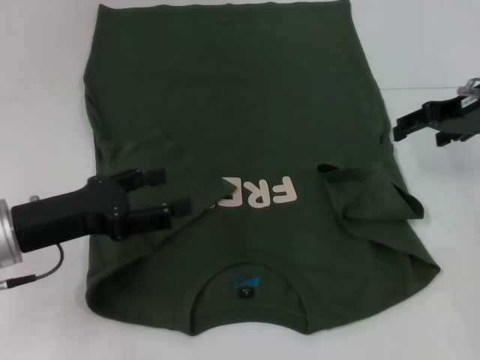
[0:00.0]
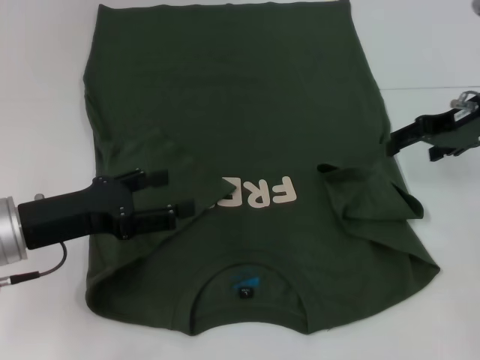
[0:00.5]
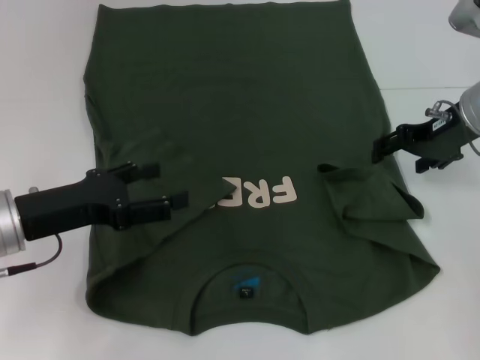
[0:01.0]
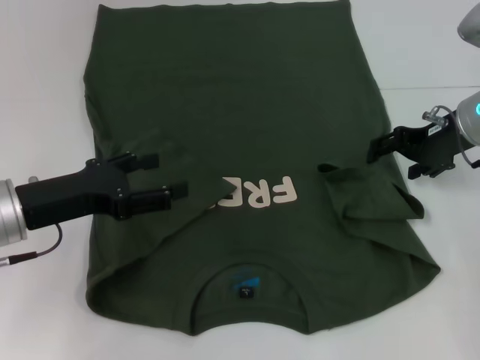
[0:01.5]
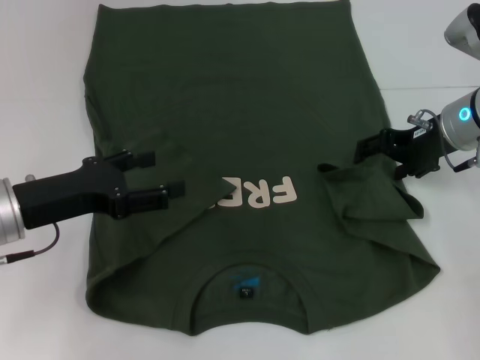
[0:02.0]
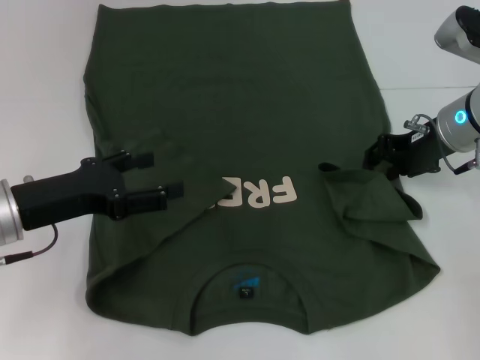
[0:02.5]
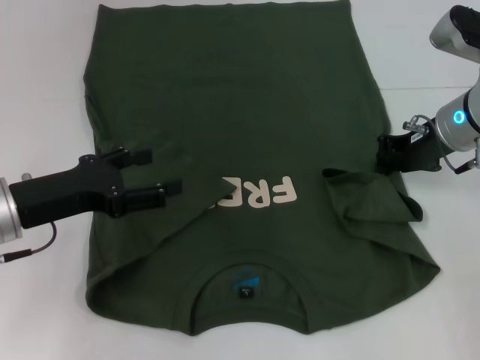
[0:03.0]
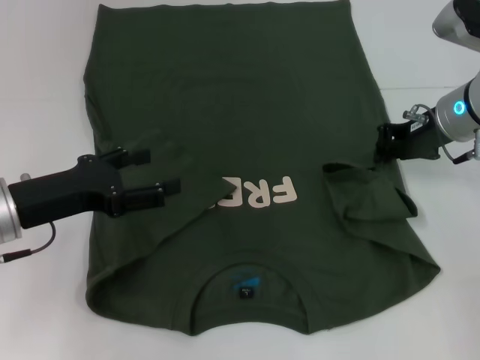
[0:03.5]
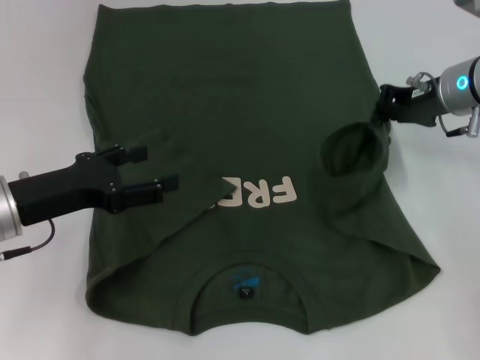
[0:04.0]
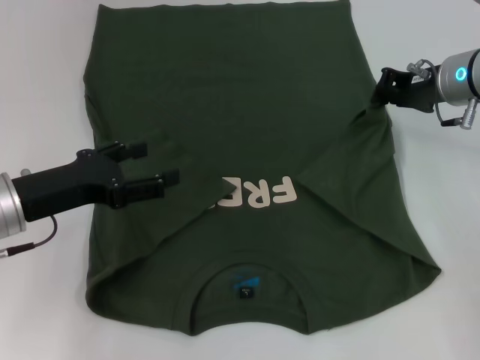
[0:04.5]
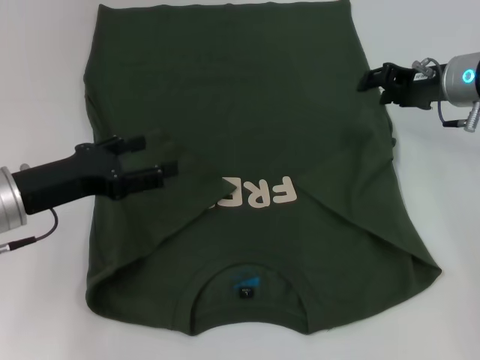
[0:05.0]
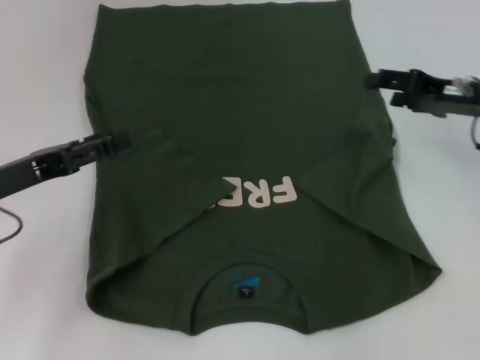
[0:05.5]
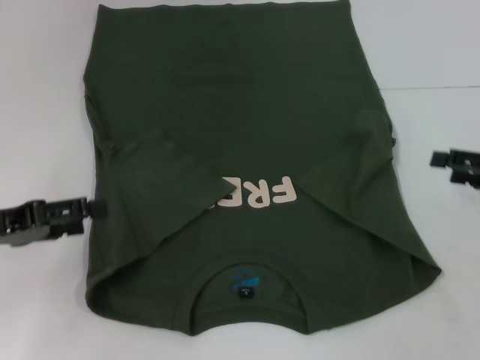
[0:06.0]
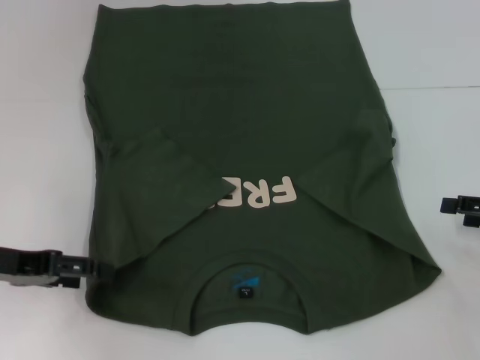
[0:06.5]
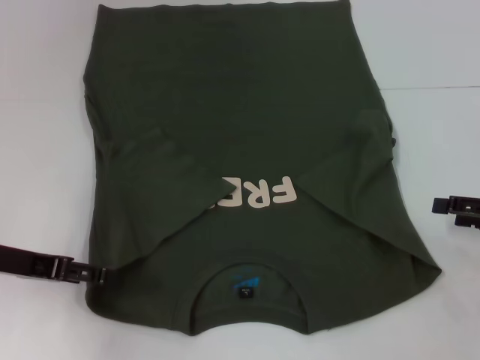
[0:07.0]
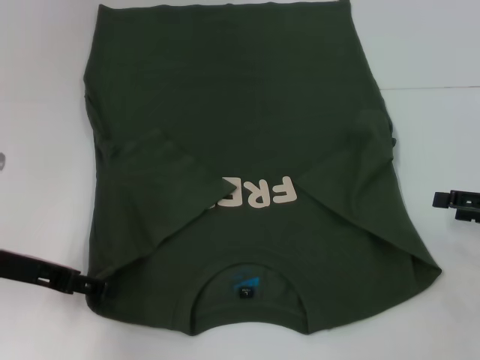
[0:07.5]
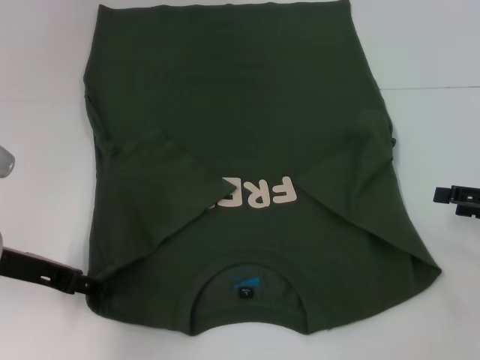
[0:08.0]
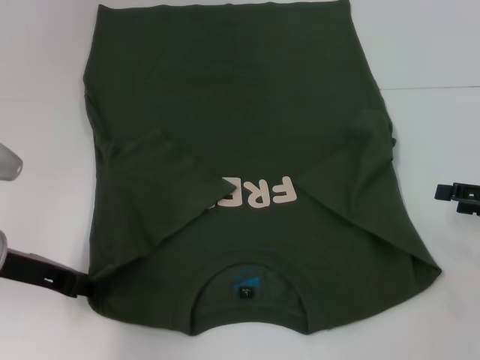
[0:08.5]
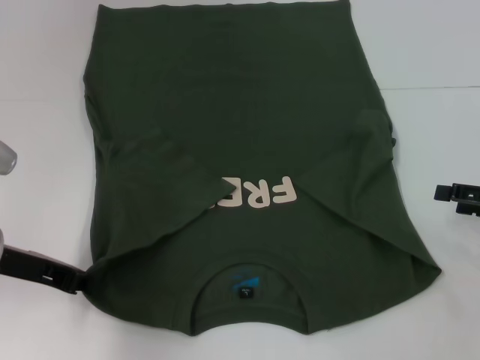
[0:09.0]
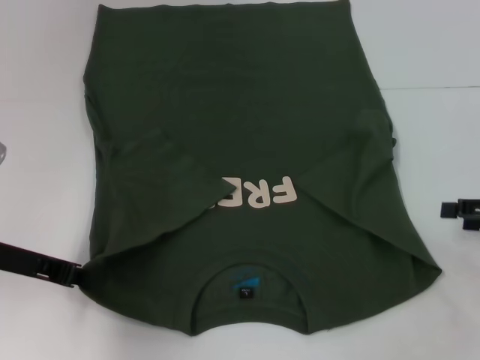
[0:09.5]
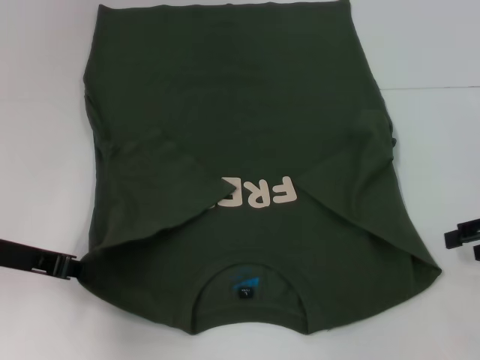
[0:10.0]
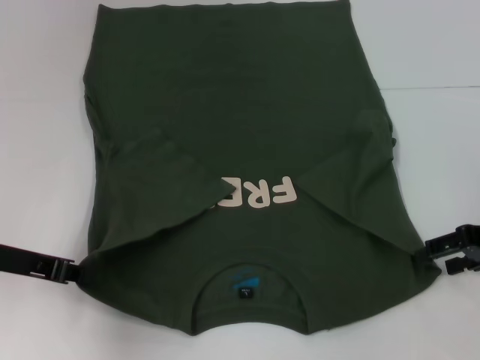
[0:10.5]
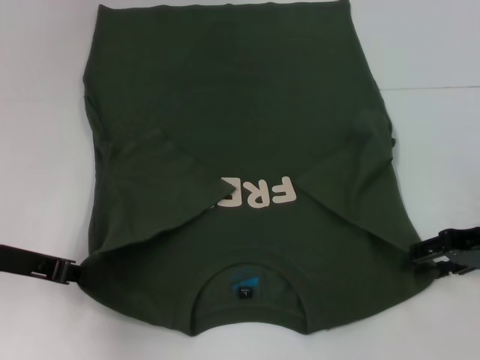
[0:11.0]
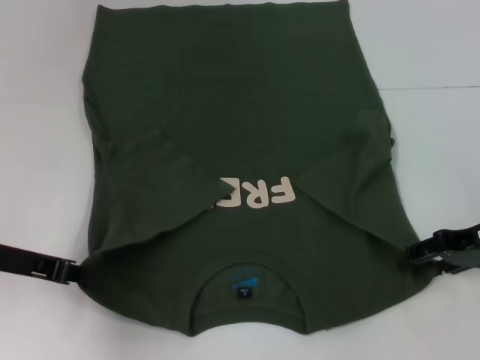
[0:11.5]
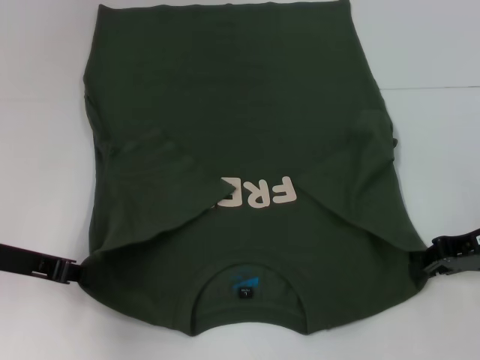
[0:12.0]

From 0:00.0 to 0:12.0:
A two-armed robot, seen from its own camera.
Step, from 0:00.0 to 0:05.0: Fold the bottom right sleeve with your right hand.
Step, from 0:05.5 to 0:09.5: Grab the bottom left corner with your left hand.
From 0:00.0 to 0:02.0: The right gripper goes roughly 5 cm downward.
From 0:02.0 to 0:04.0: The right gripper closes its fingers.
From 0:04.0 to 0:06.0: The right gripper shifts approximately 20 cm to the right and backward, and opens. Meanwhile the left gripper is displaced to the left by roughly 5 cm.
From 0:06.0 to 0:08.0: The left gripper changes place by some 5 cm.
From 0:08.0 to 0:10.0: The left gripper closes.
From 0:10.0 to 0:12.0: The right gripper goes roughly 5 cm to the left, and closes its fingers.

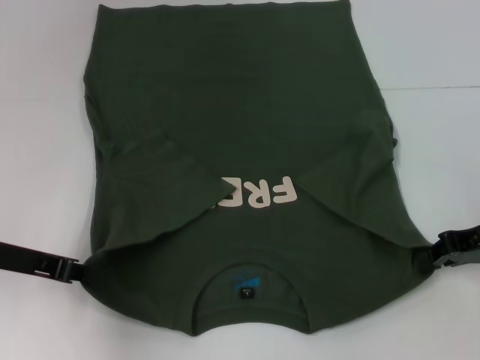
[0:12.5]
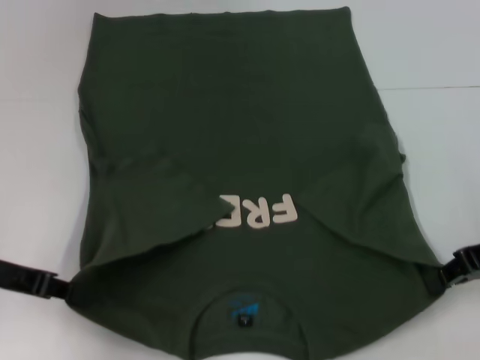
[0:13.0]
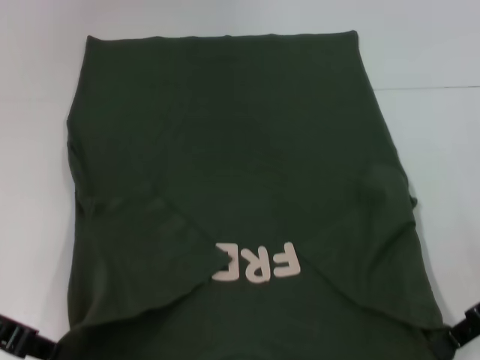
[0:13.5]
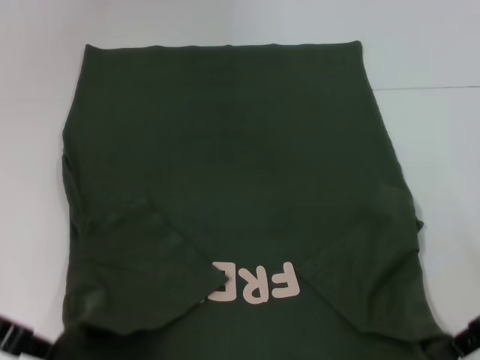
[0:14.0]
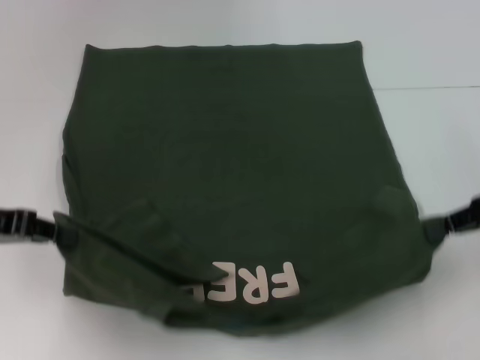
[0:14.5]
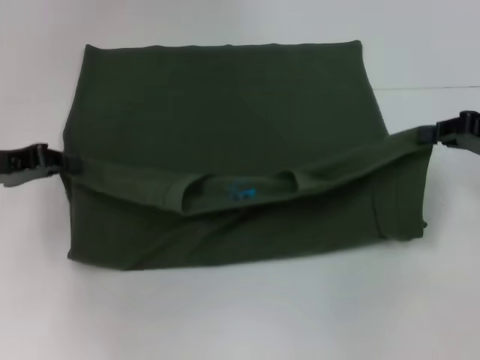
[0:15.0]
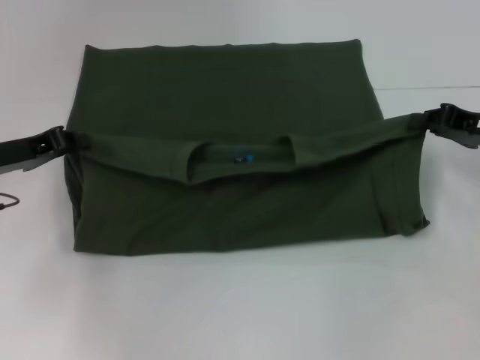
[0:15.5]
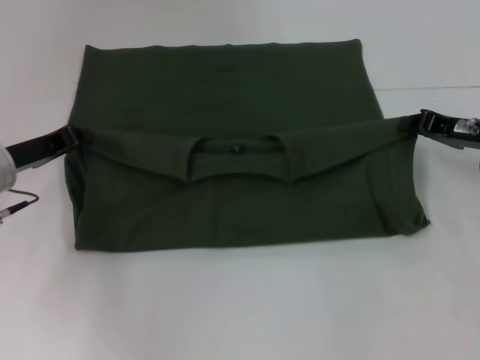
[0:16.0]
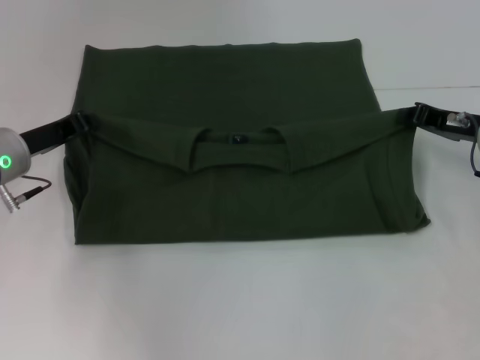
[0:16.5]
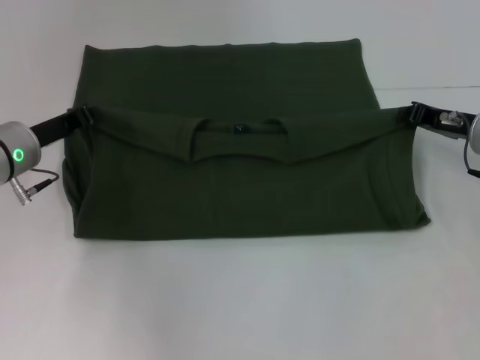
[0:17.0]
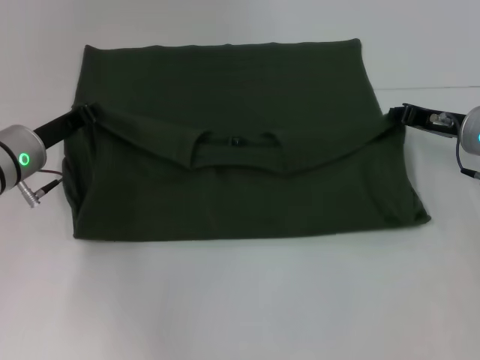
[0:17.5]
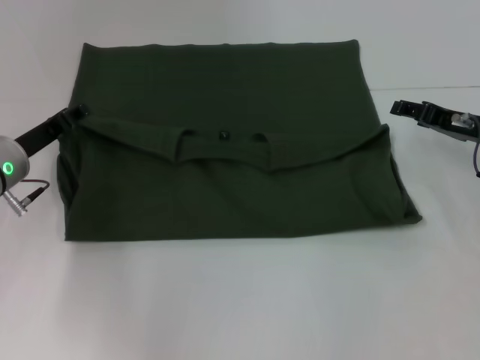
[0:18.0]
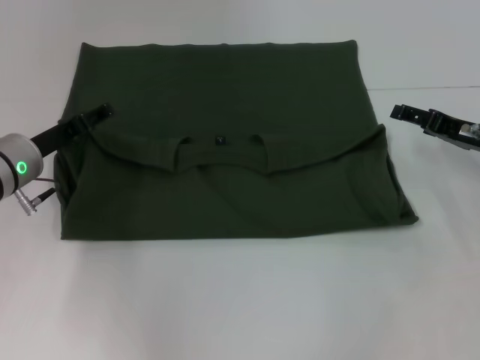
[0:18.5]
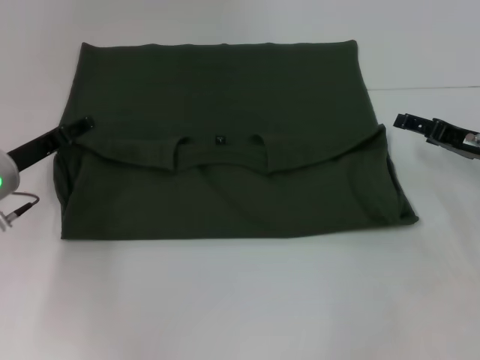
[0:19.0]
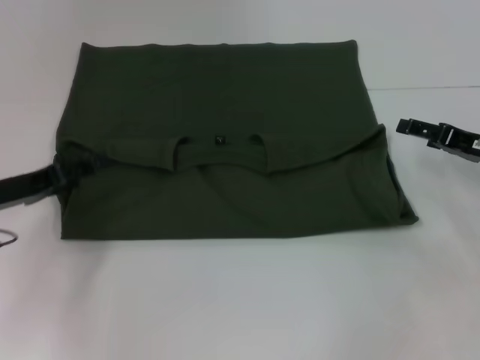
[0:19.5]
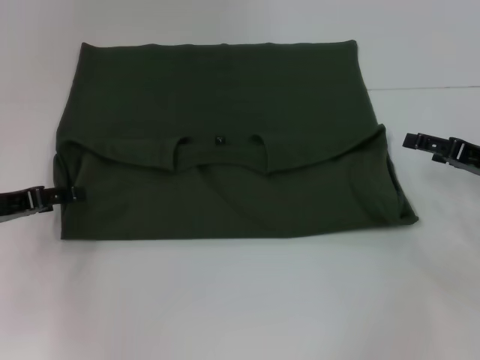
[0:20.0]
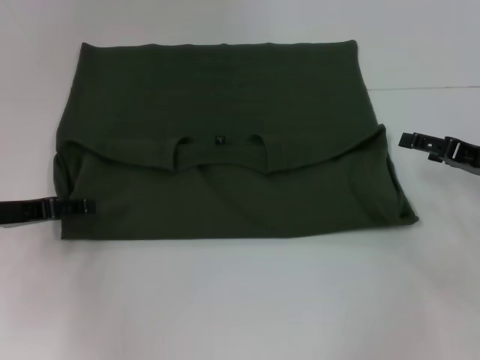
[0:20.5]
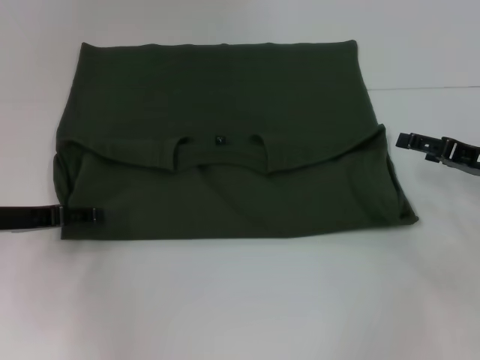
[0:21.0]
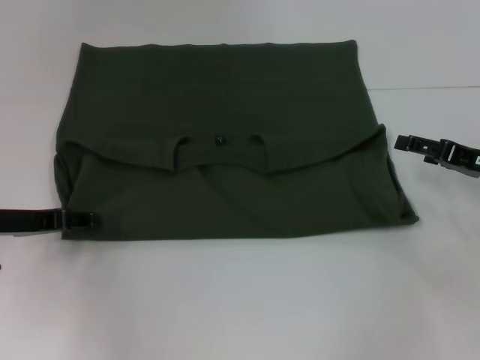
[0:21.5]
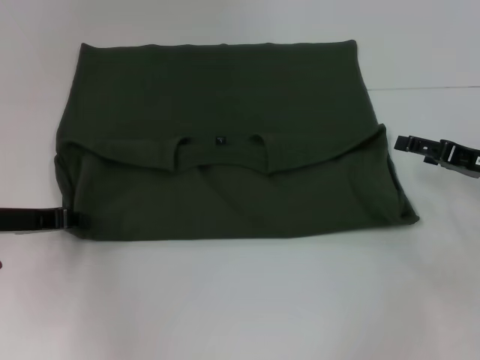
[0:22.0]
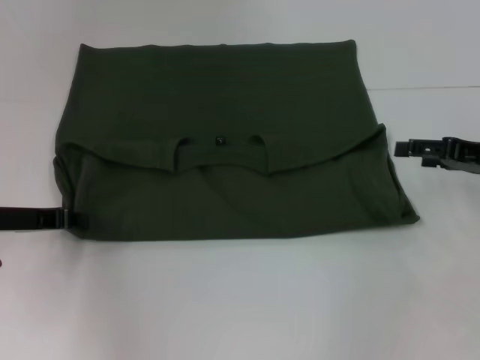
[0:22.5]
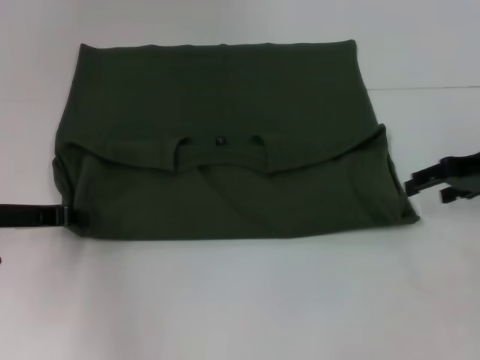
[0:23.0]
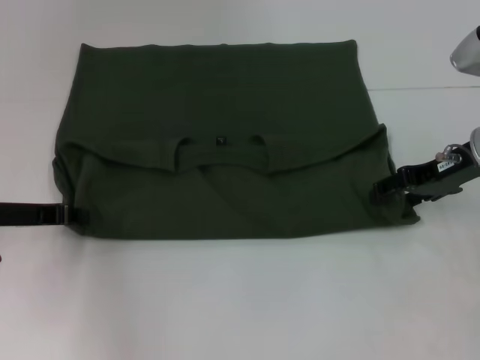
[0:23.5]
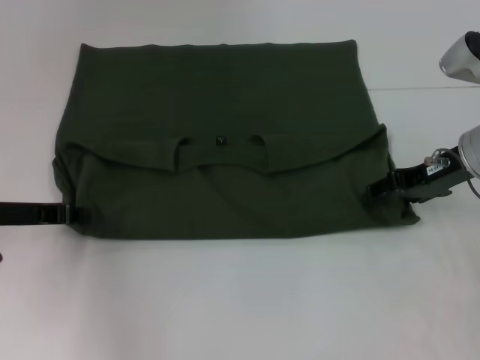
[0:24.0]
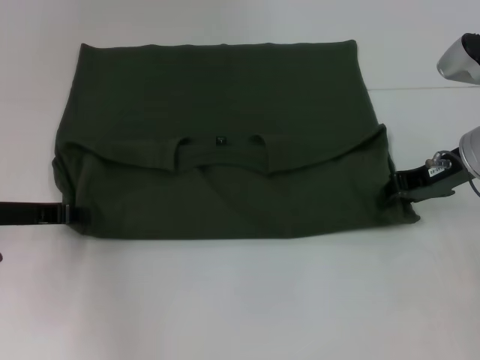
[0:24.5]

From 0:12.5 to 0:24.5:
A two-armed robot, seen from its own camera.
Step, from 0:12.5 to 0:19.5: Fold the clothes with your left hand.
Step, from 0:12.5 to 0:19.5: Fold the clothes with your right hand.
From 0:12.5 to 0:14.5: The right gripper moves upward, some 5 cm. Meanwhile the left gripper changes place by approximately 5 cm.
From 0:14.5 to 0:16.5: The left gripper travels forward, downward and to the right by some 10 cm. The right gripper moves forward and downward, approximately 10 cm.
From 0:16.5 to 0:18.5: The right gripper opens up; the left gripper opens its fingers.
From 0:18.5 to 0:20.5: The left gripper shifts roughly 10 cm to the left and backward.
From 0:20.5 to 0:22.5: The left gripper closes up.
From 0:22.5 to 0:24.5: The right gripper travels to the left by approximately 5 cm, and closes.

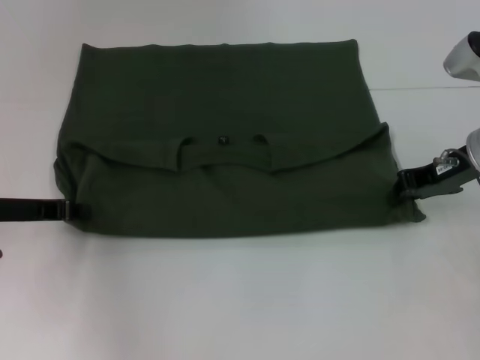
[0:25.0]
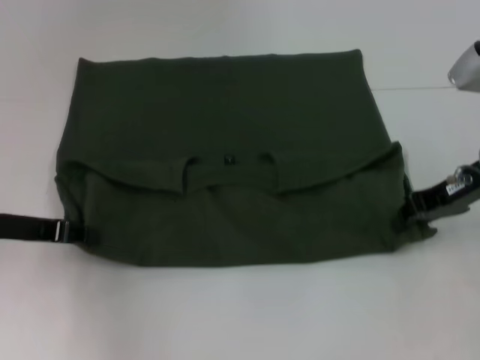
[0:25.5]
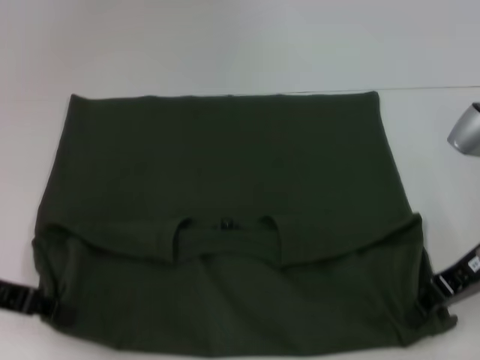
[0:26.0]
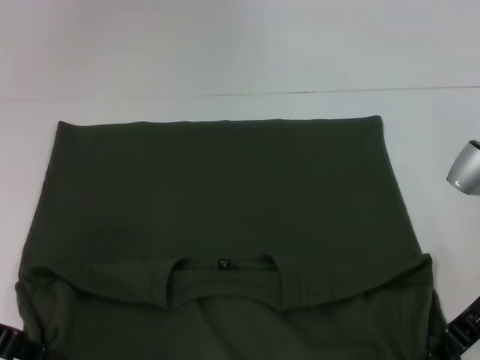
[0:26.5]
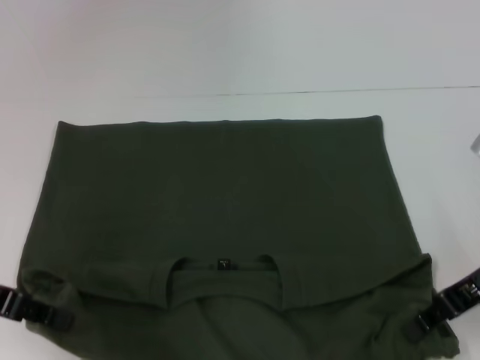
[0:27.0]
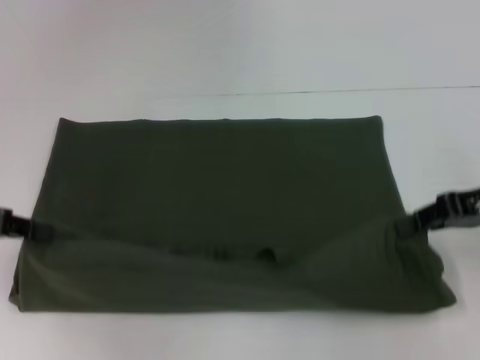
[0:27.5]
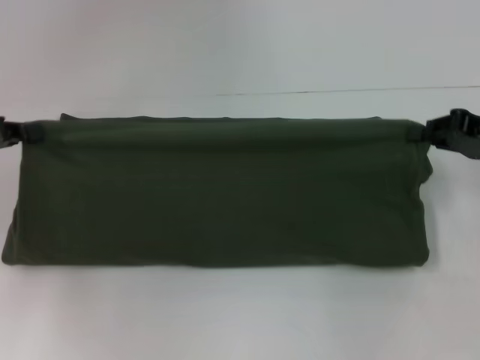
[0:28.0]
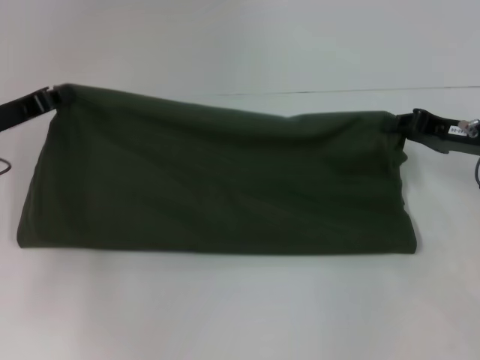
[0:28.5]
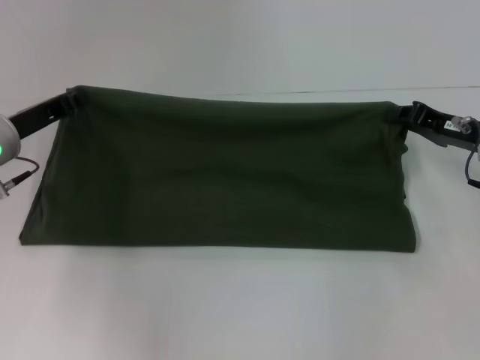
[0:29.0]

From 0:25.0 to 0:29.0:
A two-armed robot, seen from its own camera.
From 0:25.0 to 0:27.0: Both grippers move backward, some 5 cm.
From 0:27.0 to 0:29.0: The left gripper goes approximately 10 cm forward. The right gripper goes some 5 cm forward.
